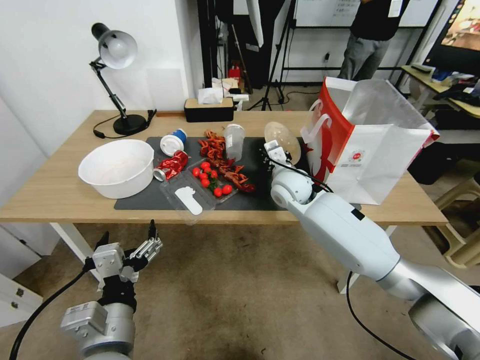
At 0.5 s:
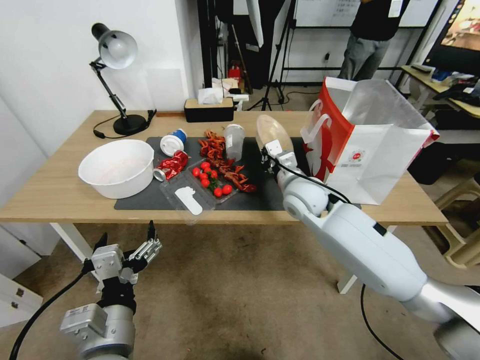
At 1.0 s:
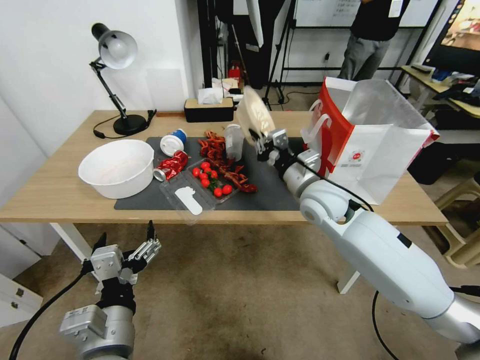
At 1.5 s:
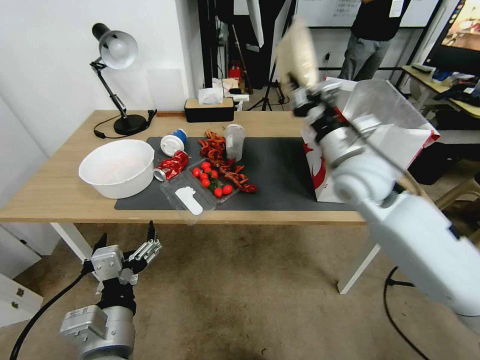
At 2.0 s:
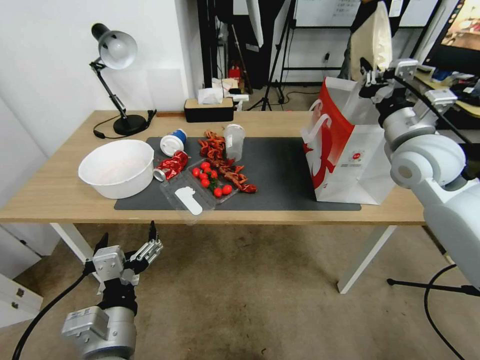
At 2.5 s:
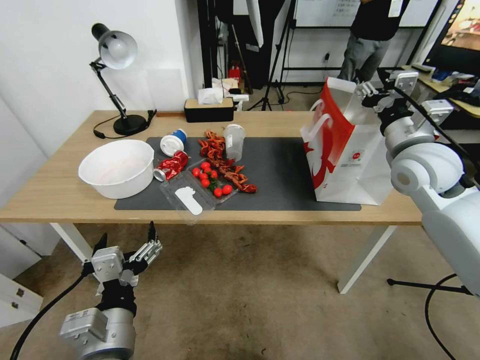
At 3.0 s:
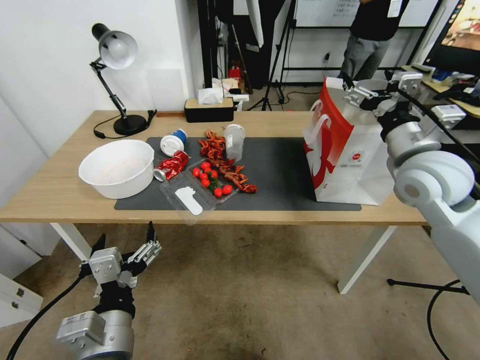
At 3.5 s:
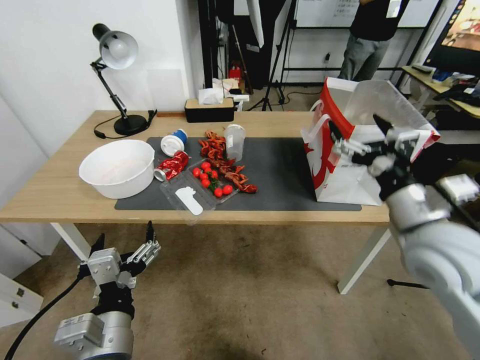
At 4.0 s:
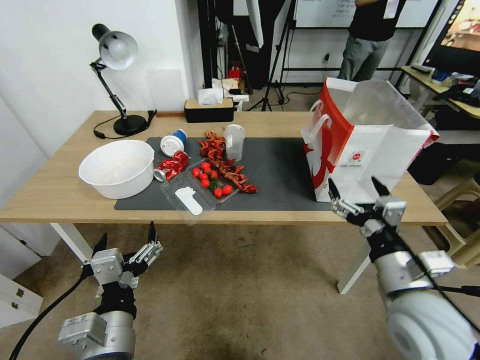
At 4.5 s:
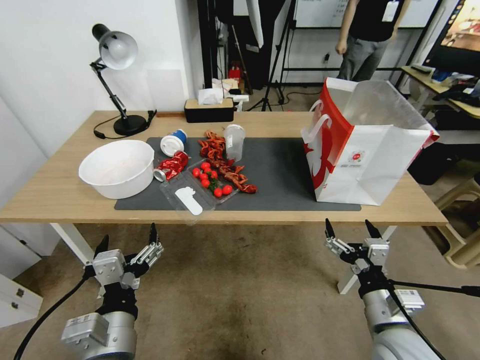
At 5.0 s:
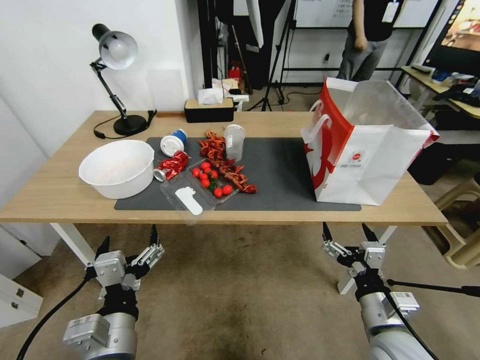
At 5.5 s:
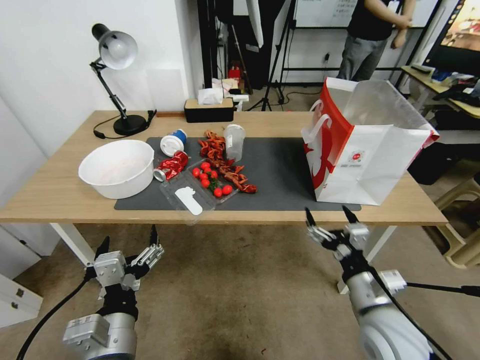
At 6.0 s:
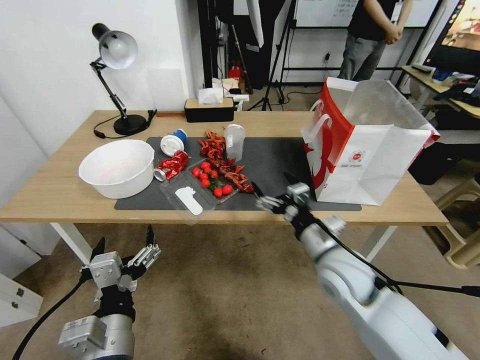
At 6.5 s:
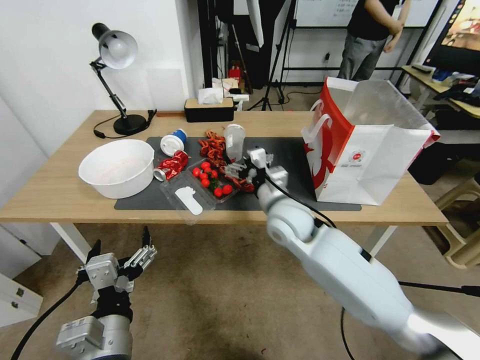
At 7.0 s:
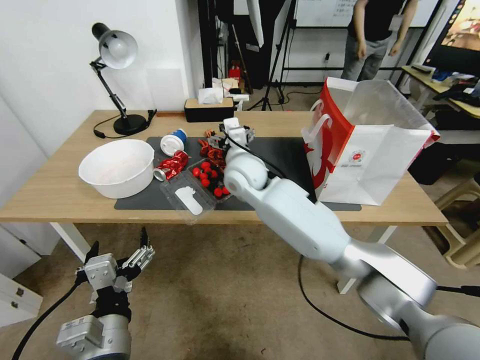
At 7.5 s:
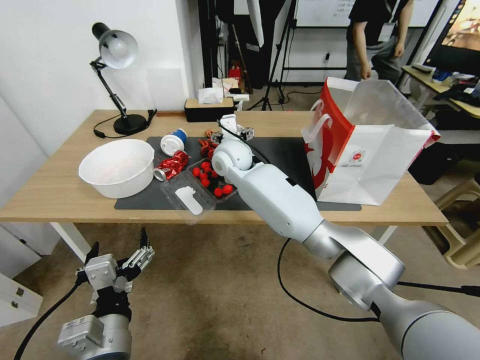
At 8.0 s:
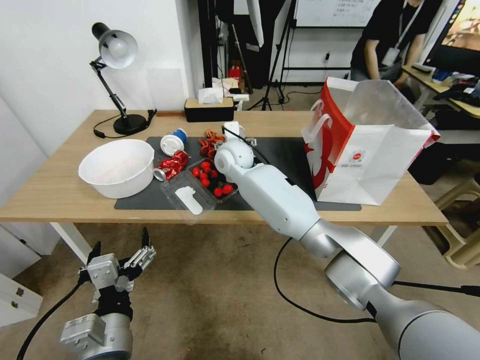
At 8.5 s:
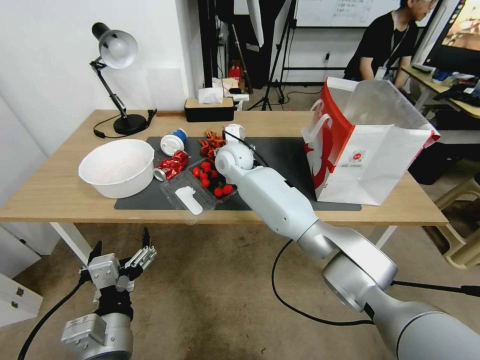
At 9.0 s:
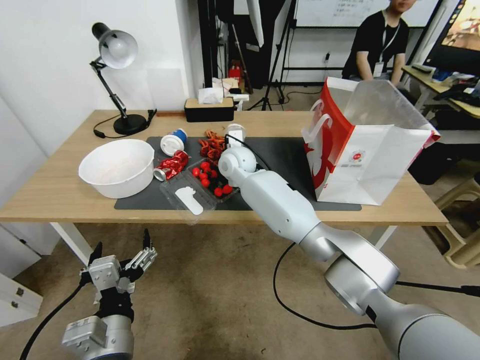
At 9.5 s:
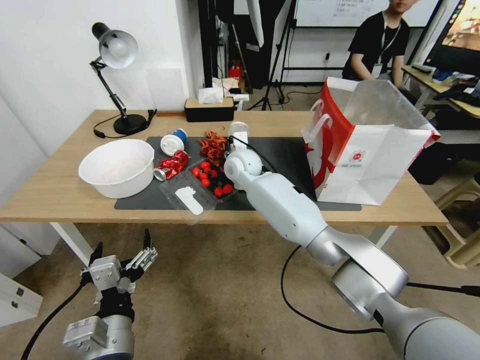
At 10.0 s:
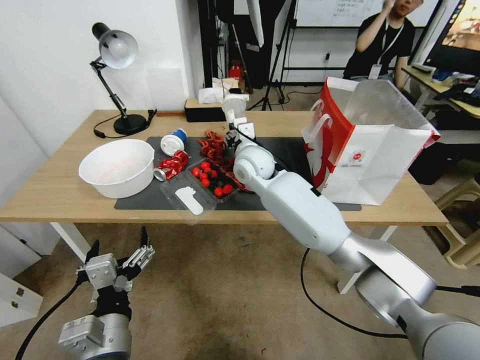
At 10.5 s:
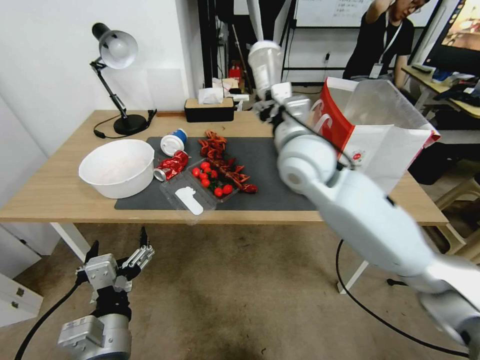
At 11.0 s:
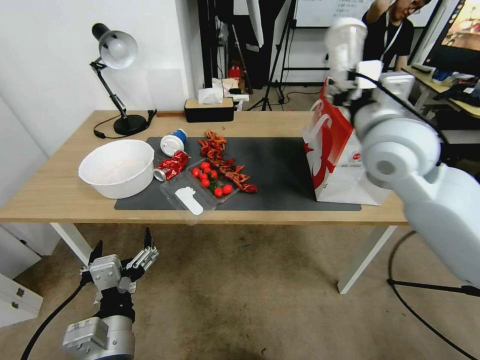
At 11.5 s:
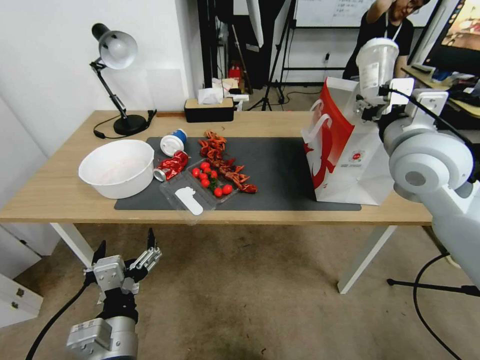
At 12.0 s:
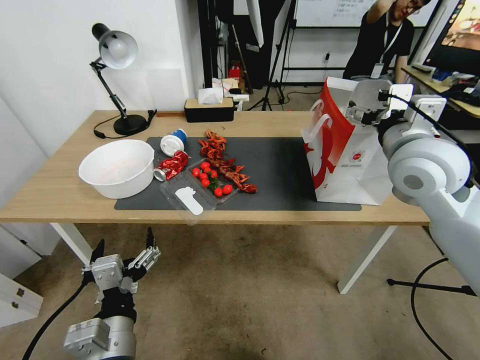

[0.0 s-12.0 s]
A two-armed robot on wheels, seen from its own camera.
0.0 to 2.0 s: The right gripper heads to the right, upward and backward, covering approximately 25 cm.
2.0 to 4.0 s: The right gripper is displaced backward and downward by approximately 25 cm, and opens its fingers.
4.0 to 6.0 s: The right gripper is displaced forward, to the left and downward by some 15 cm.
6.0 to 8.0 s: The right gripper shifts some 35 cm forward and to the left.
8.0 to 10.0 s: The right gripper changes place by about 5 cm, and closes.
10.0 to 12.0 s: The right gripper is displaced to the right, backward and upward by about 30 cm, and opens its fingers.

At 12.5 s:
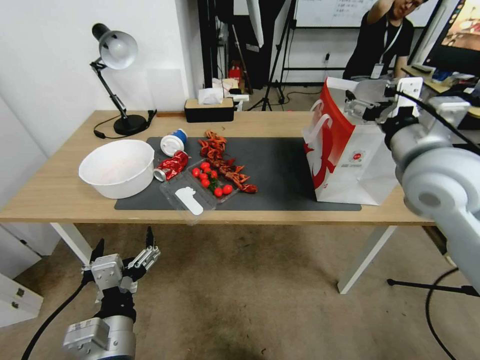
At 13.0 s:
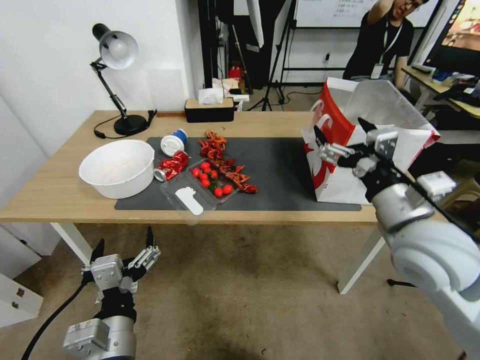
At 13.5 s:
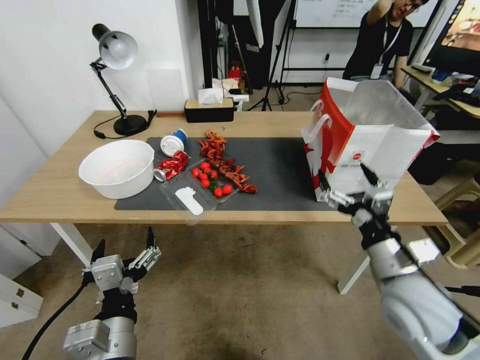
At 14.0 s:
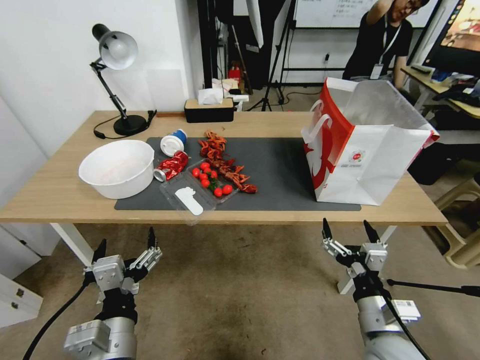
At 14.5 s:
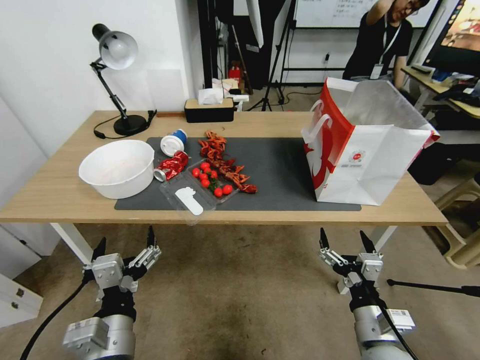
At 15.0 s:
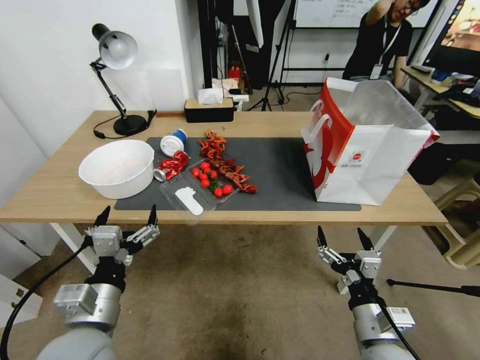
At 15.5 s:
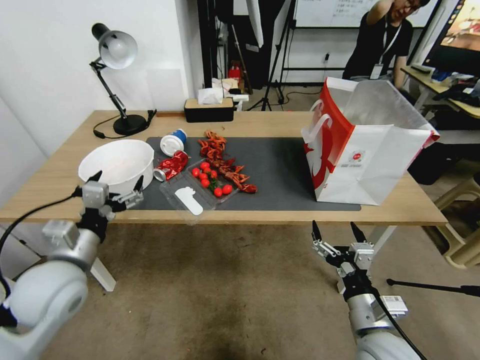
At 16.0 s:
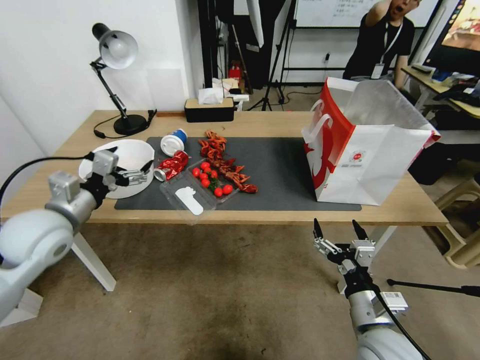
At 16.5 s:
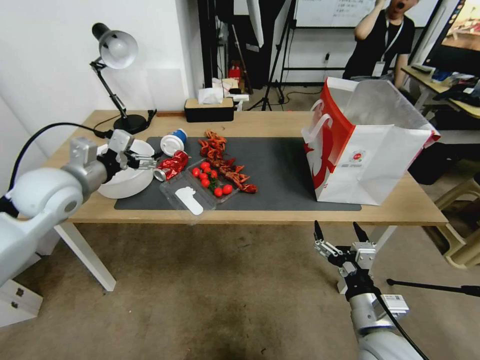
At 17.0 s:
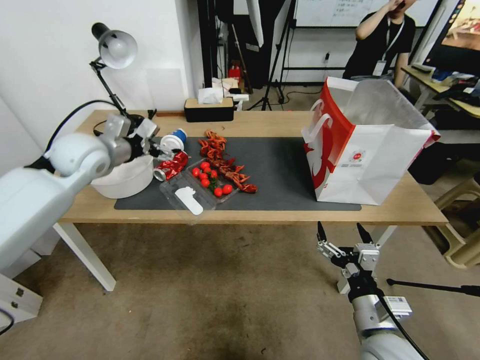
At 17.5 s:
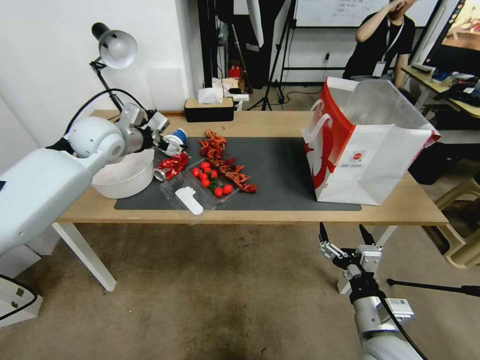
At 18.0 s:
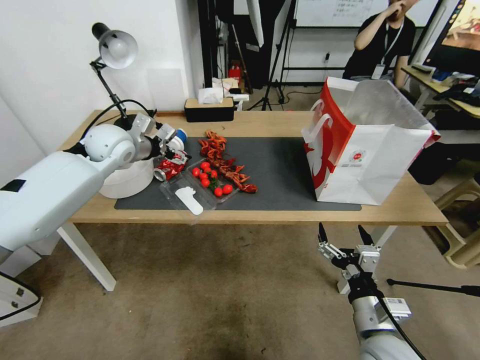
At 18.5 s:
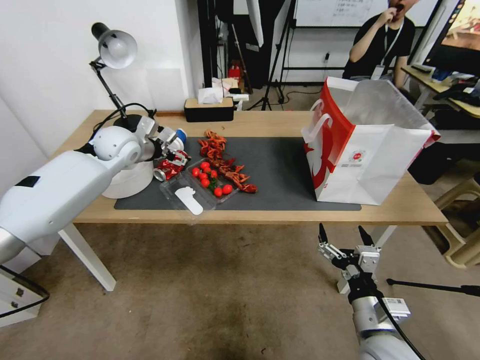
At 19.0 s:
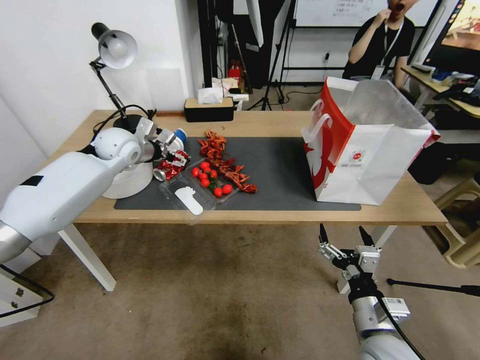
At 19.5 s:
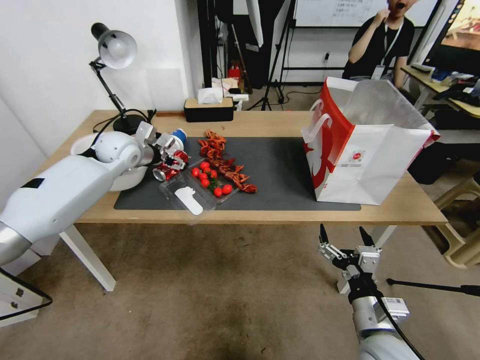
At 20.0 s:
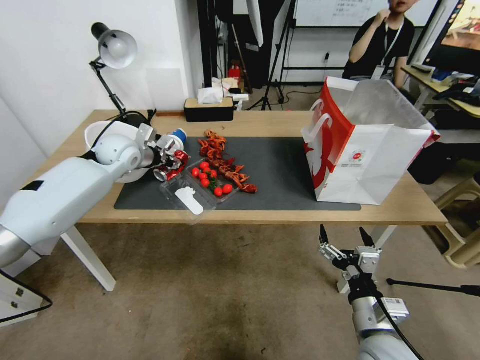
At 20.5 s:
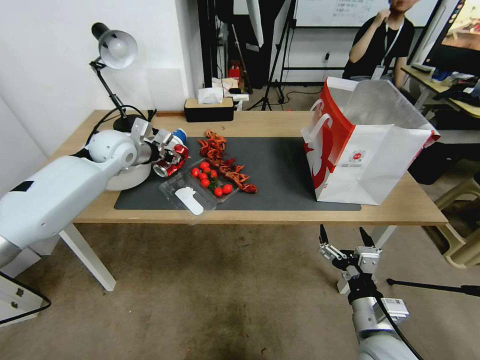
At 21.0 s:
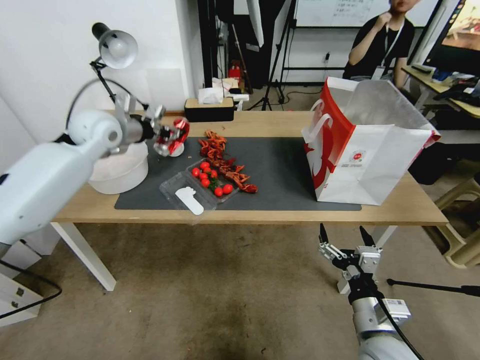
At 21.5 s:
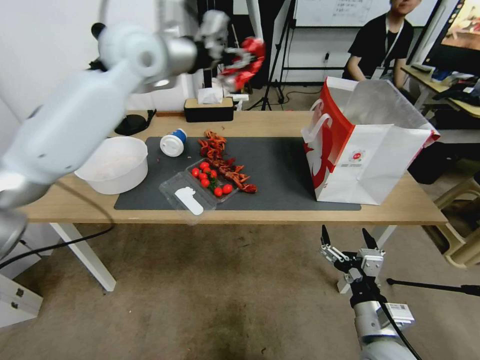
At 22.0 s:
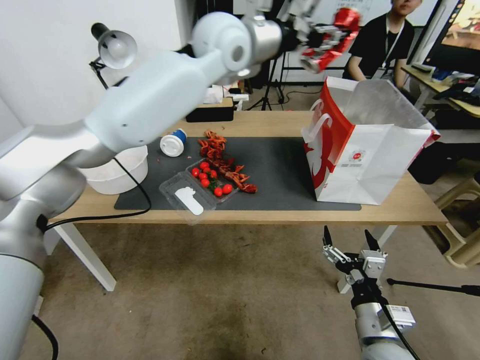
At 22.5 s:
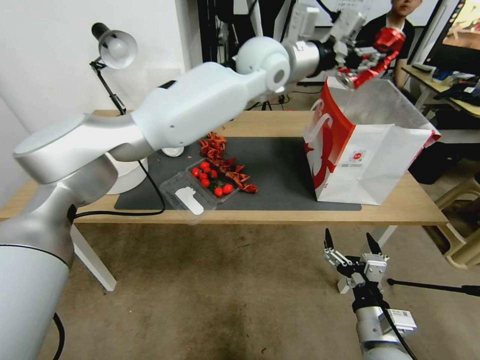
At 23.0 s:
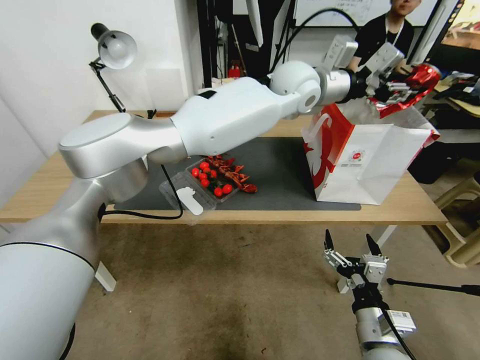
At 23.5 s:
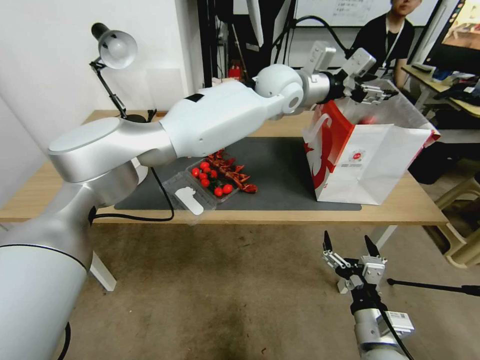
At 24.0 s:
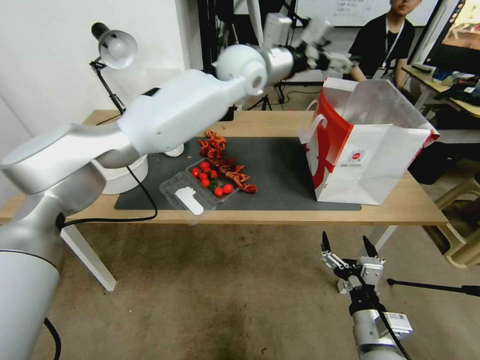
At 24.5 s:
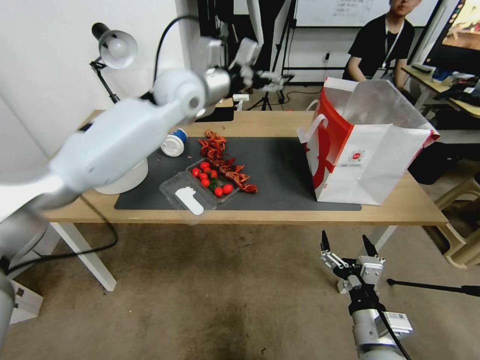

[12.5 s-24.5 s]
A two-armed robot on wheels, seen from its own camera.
12.5 to 14.5 s: The right gripper moves downward and backward, about 35 cm.
14.5 to 16.5 s: The left gripper is displaced forward, to the left and upward by about 35 cm.
16.5 to 18.5 s: The left gripper is displaced forward by roughly 15 cm.
18.5 to 20.5 s: The left gripper closes.
20.5 to 22.5 s: The left gripper is displaced to the right and upward by about 40 cm.
22.5 to 24.5 s: The left gripper moves to the left, roughly 15 cm, and opens.

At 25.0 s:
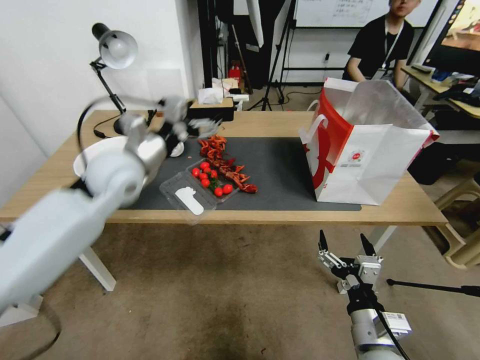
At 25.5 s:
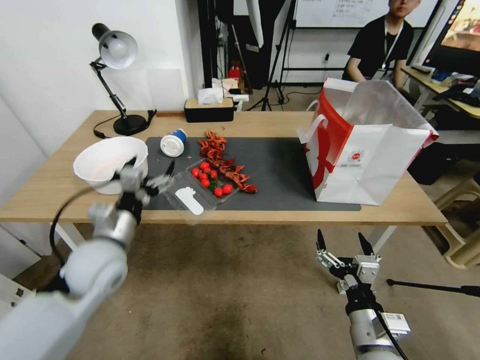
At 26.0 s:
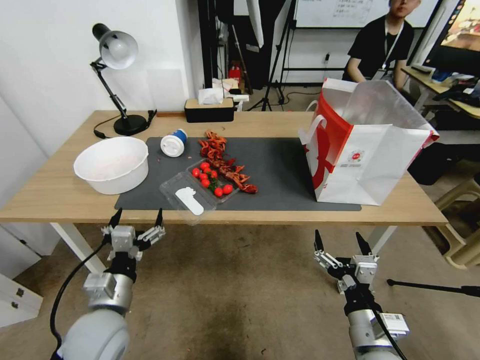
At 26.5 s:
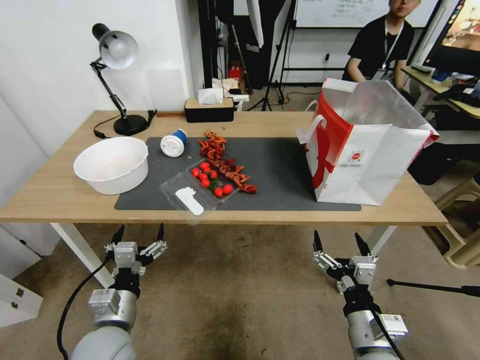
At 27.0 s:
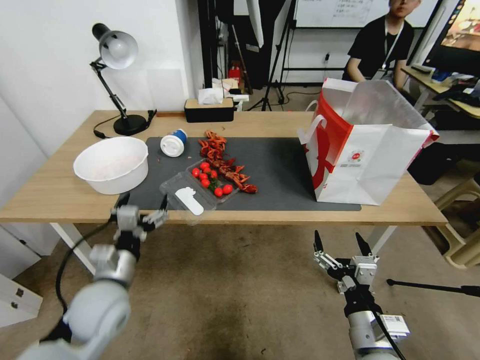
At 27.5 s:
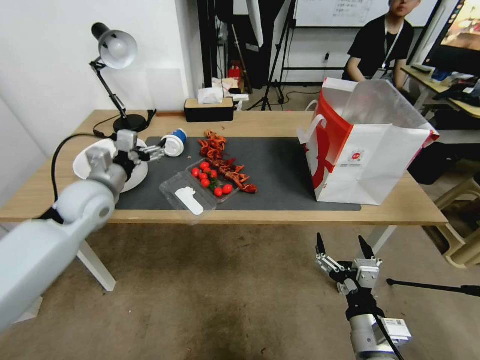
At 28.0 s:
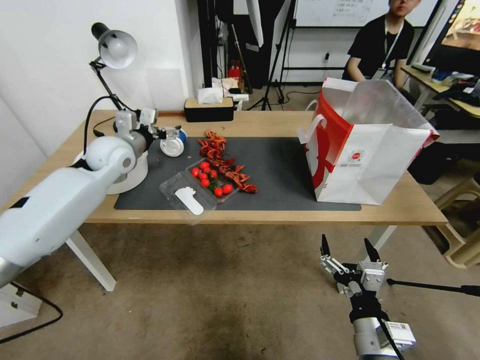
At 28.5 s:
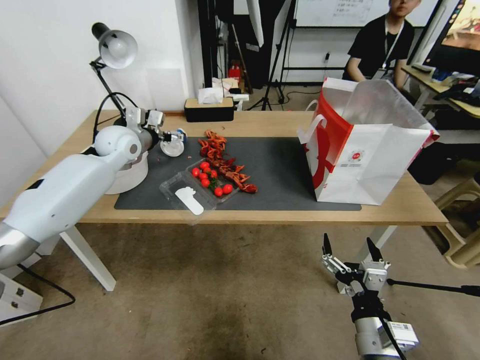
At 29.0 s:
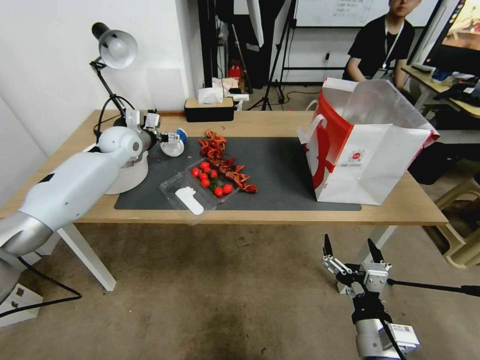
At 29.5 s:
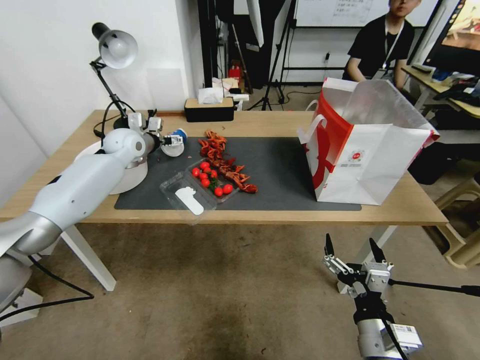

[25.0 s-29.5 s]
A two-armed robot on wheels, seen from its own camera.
25.0 to 27.0 s: The left gripper travels downward and backward by about 25 cm.
27.0 to 29.5 s: The left gripper shifts some 35 cm forward.
